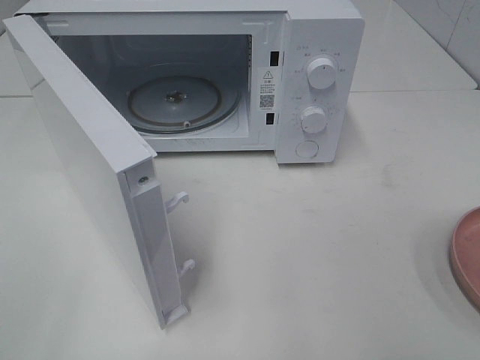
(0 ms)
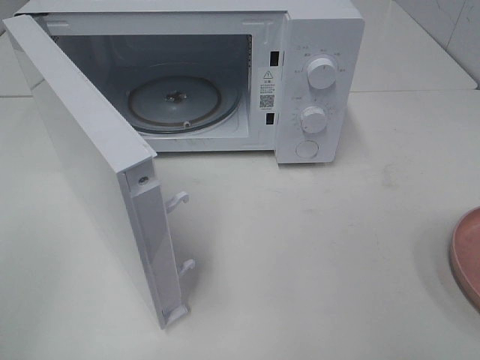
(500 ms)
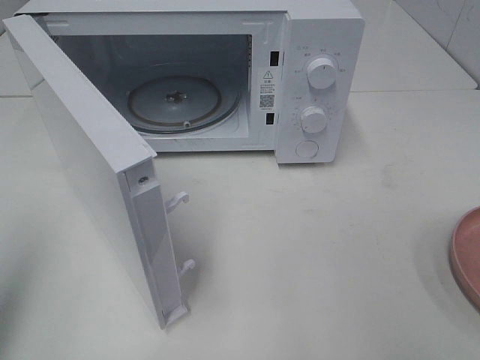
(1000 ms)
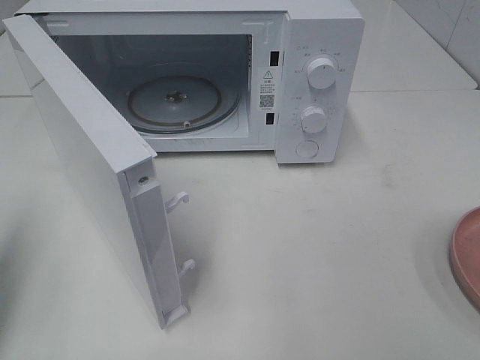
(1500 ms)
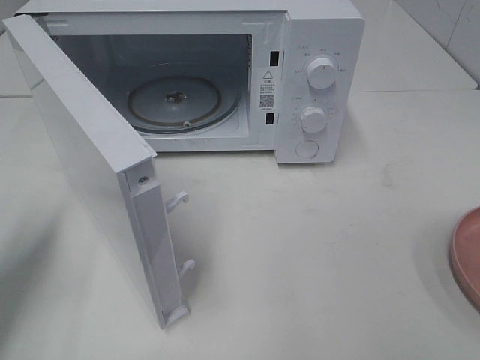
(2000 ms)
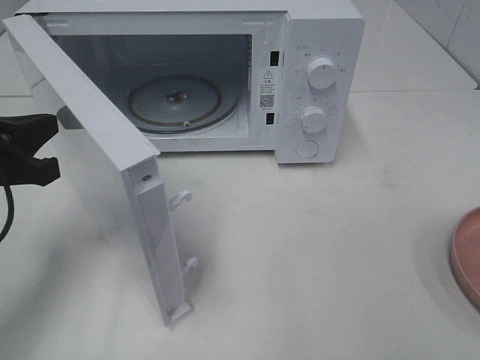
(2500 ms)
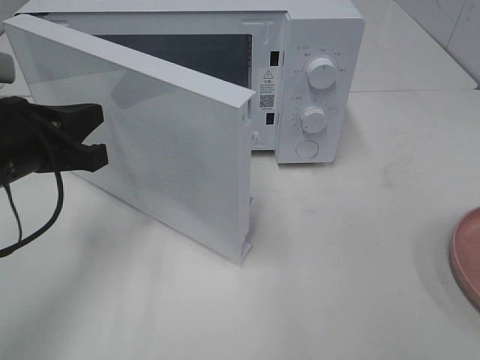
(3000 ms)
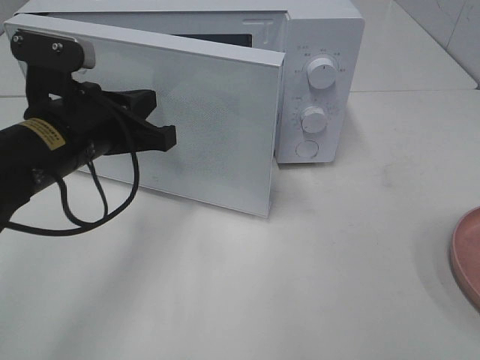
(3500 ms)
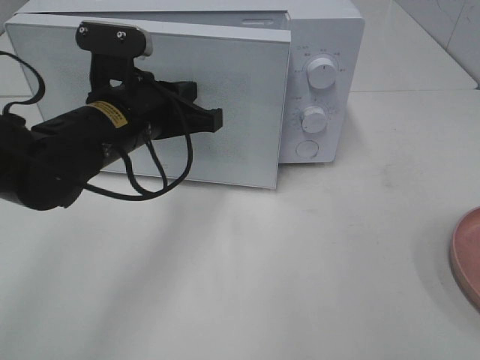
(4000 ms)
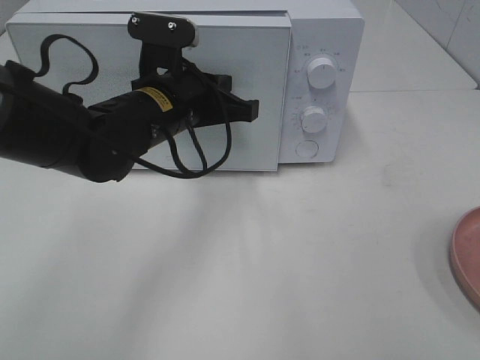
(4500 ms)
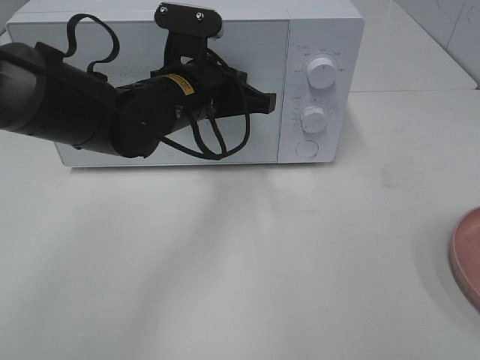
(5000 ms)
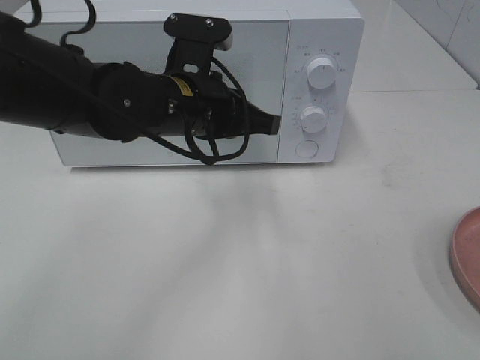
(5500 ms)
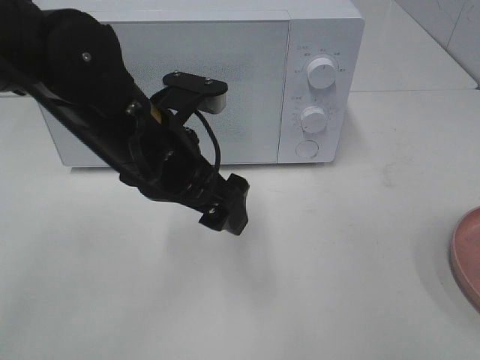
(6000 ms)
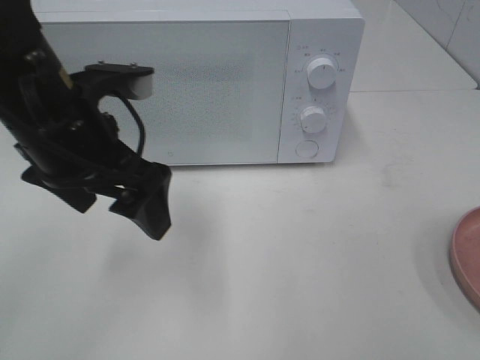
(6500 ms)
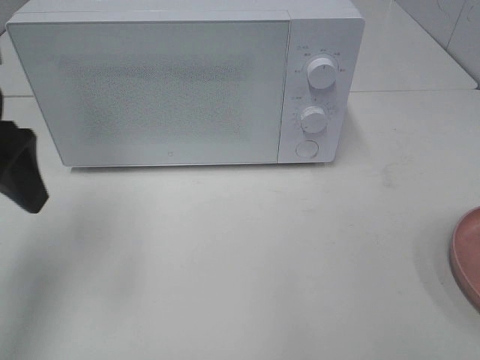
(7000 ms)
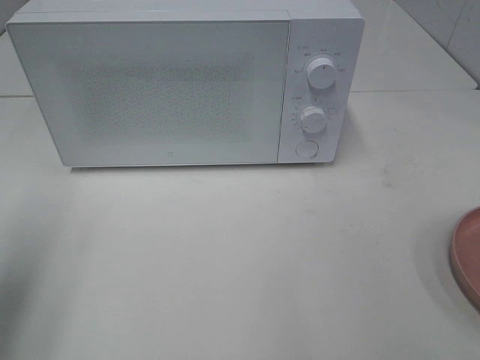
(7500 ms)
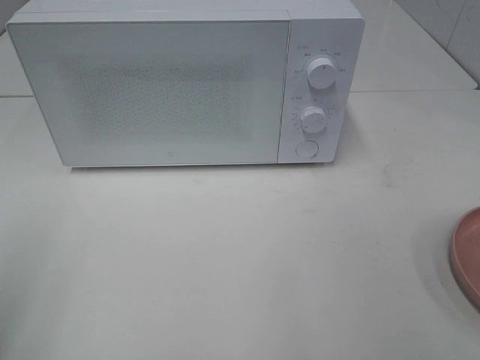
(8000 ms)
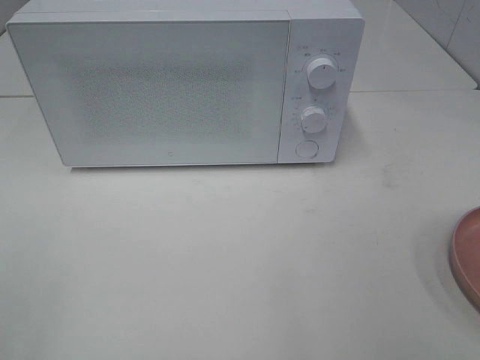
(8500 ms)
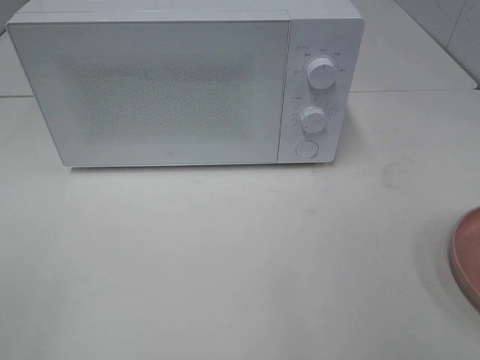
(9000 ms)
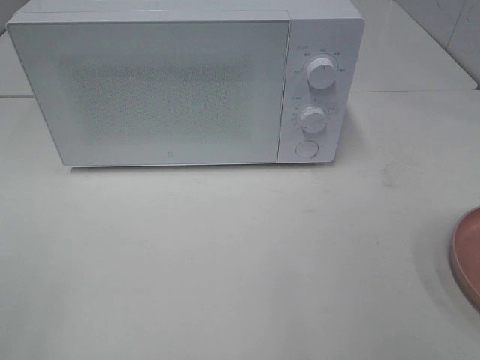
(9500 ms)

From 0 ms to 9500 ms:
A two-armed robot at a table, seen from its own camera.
Task of the whole recording: Heat the burger.
Step, from 0 ms to 5500 ms: Left hand: close the microwave door.
From 0 ms to 2000 ms: The left gripper is displaced forward and downward by roughly 20 cm, and closes.
From 2000 ms to 4000 ms: The left gripper moves to the right and forward, roughly 20 cm.
From 4000 ms to 5500 ms: The left gripper heads to the right, covering roughly 5 cm.
From 5500 ms to 7500 ms: The left gripper moves to the left and backward, roughly 30 cm, and opens its fingers.
From 7500 ms to 9500 ms: The left gripper is displaced backward by about 15 cm.

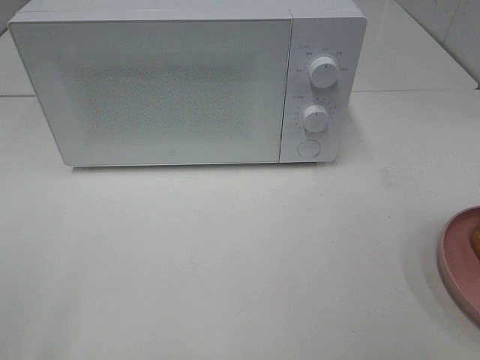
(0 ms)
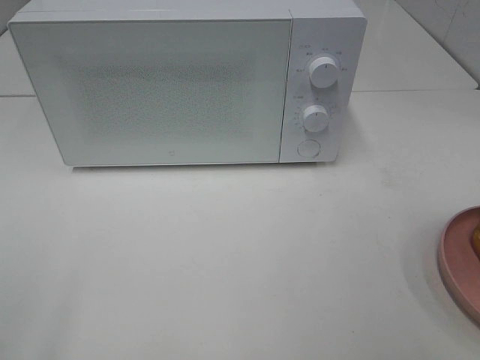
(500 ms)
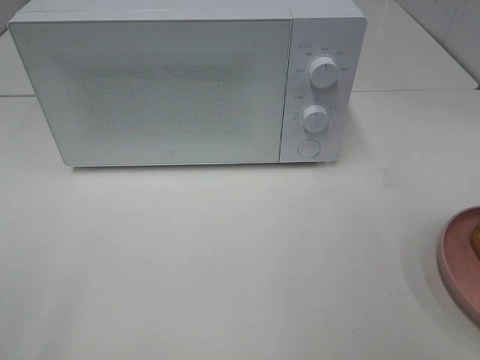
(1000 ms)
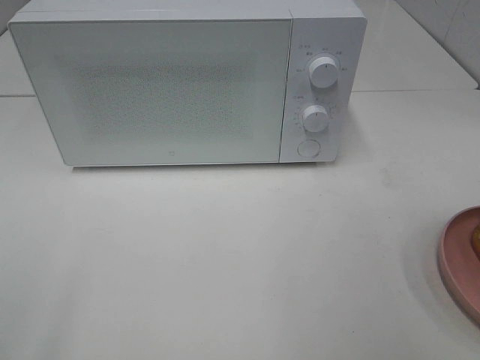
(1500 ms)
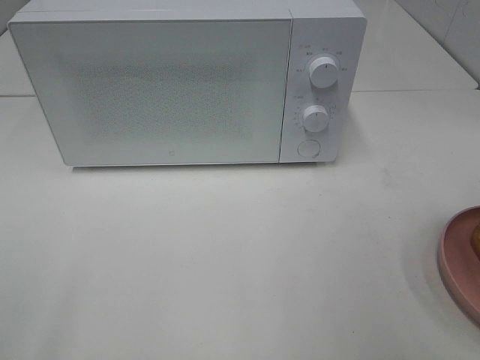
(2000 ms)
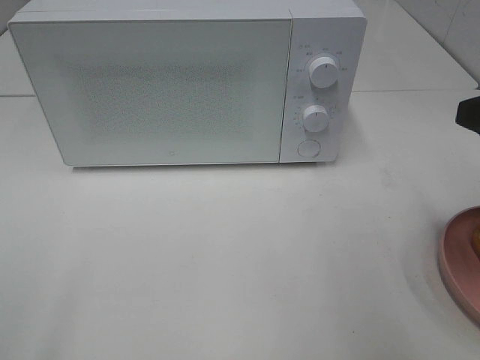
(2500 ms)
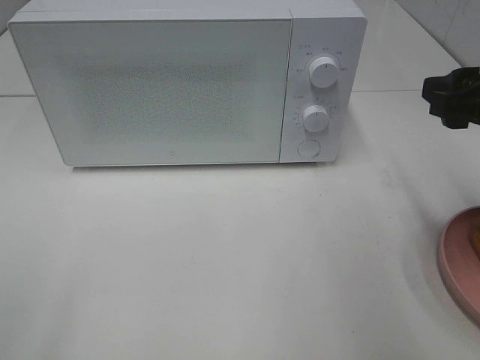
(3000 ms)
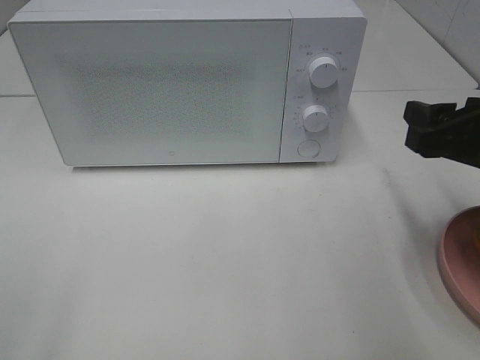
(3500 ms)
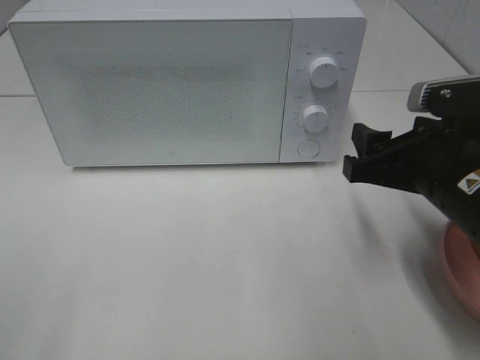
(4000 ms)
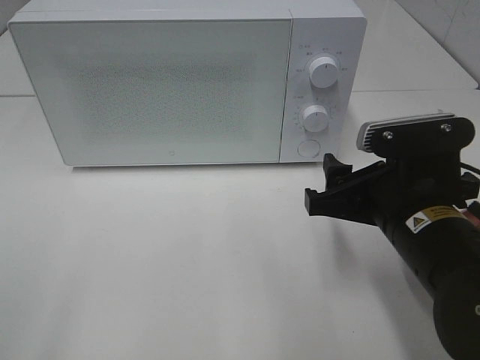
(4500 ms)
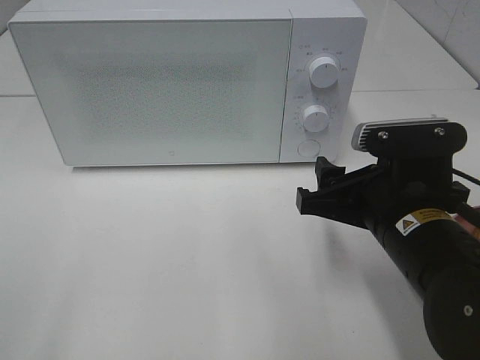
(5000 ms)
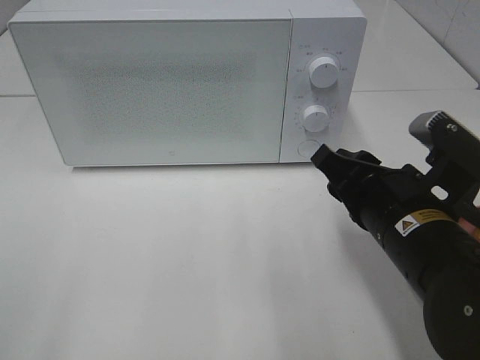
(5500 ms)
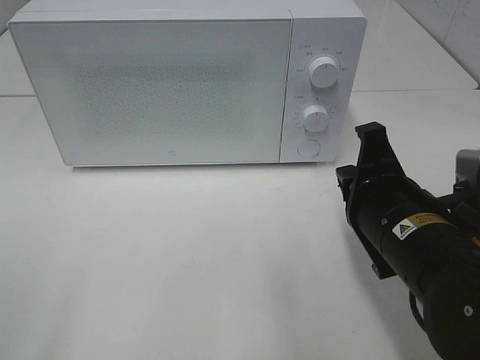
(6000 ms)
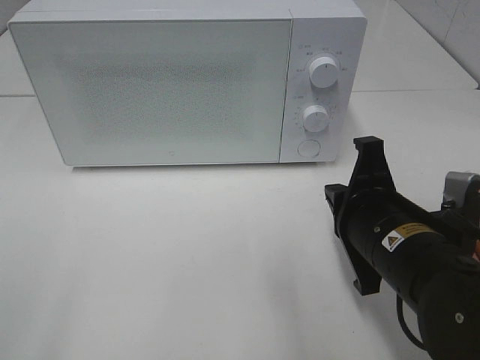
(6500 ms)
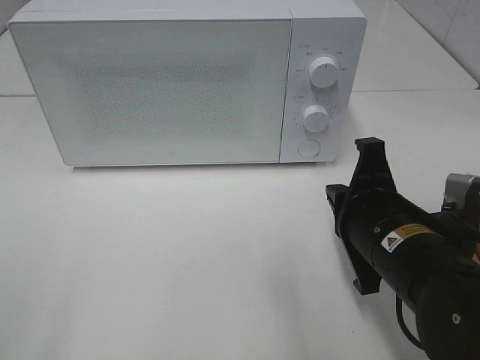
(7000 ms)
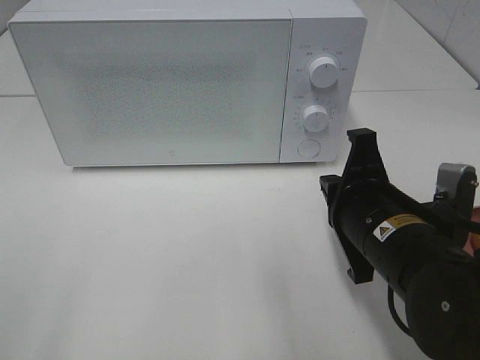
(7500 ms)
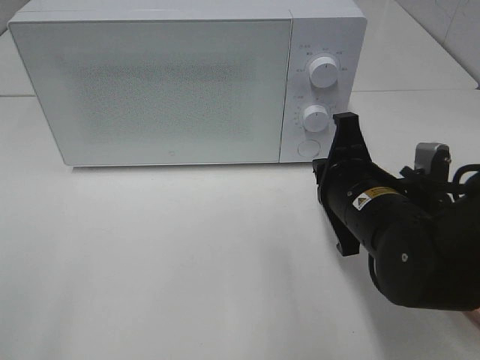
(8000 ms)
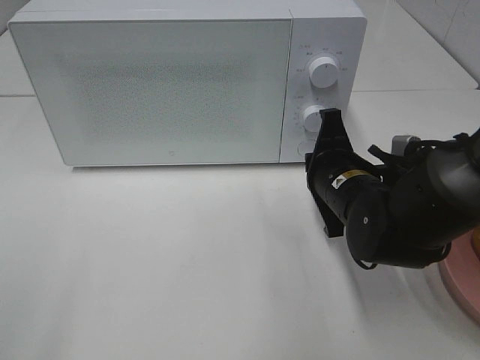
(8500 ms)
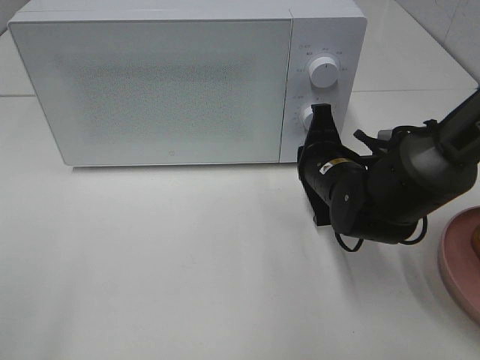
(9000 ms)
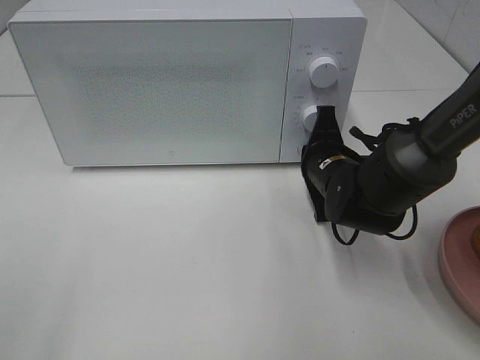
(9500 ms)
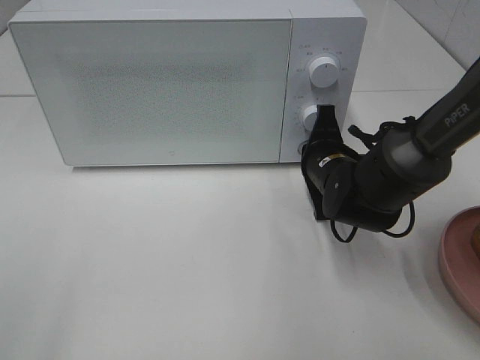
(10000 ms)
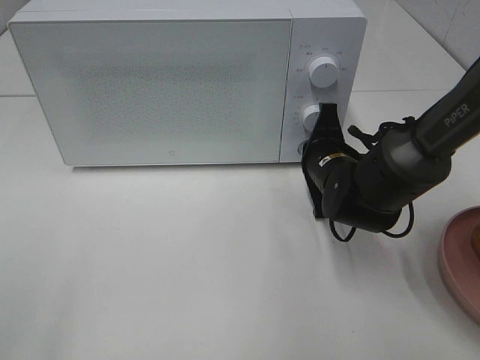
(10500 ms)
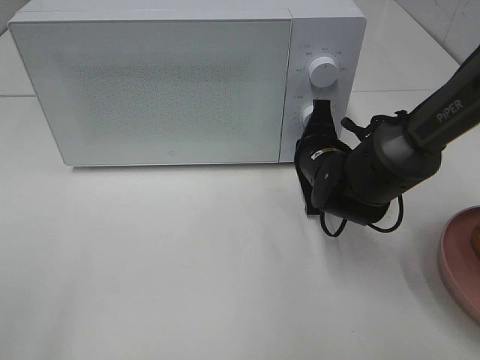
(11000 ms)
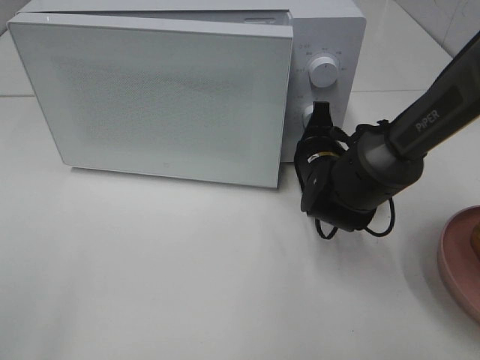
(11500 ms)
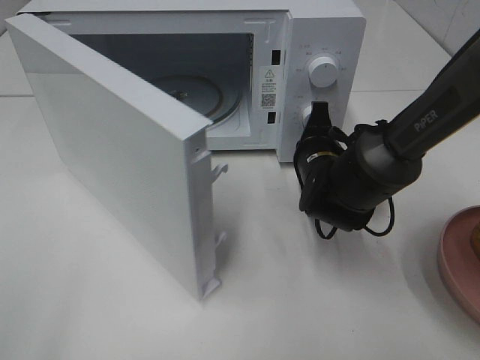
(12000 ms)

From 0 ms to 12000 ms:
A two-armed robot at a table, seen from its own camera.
Task of the whole recording: Heat the burger.
From 2000 ms to 4000 ms: The right gripper shifts roughly 15 cm downward, forward and to the left.
From 4000 ms to 6000 ms: The right gripper moves about 5 cm, and closes up.
From 6000 ms to 8000 ms: The right gripper moves some 5 cm.
From 8000 ms to 10000 ms: The right gripper travels forward and downward by some 10 cm.

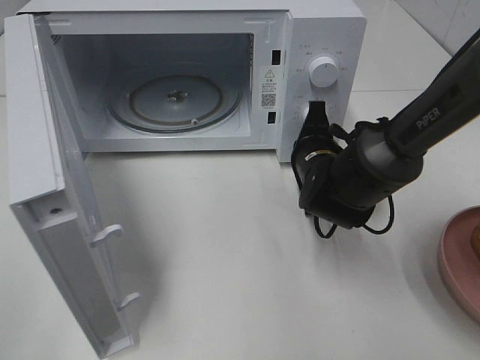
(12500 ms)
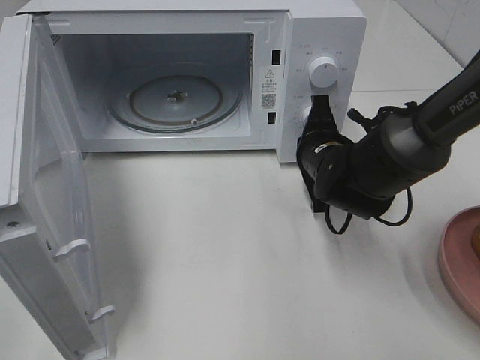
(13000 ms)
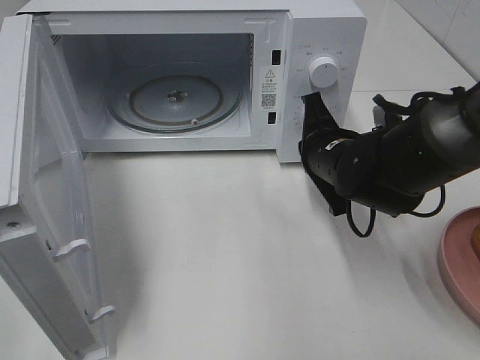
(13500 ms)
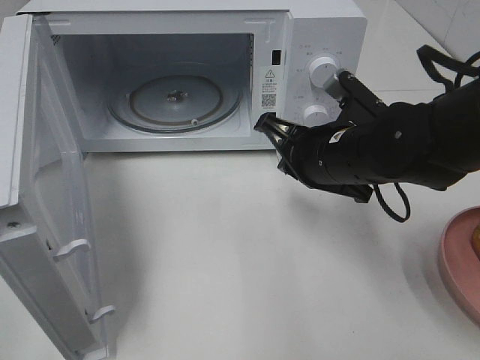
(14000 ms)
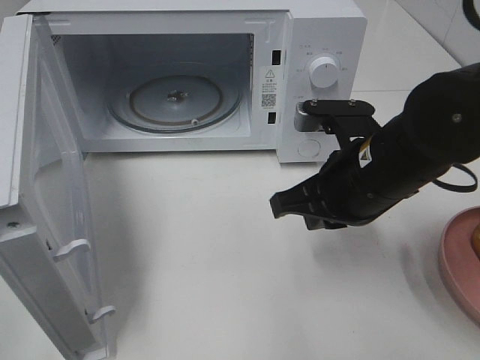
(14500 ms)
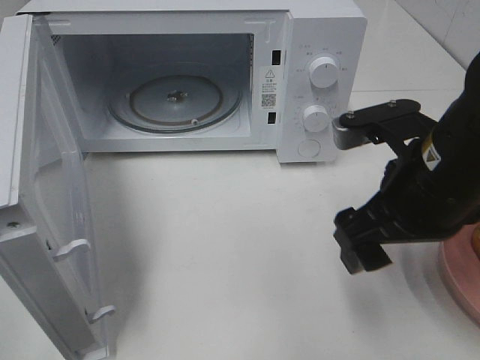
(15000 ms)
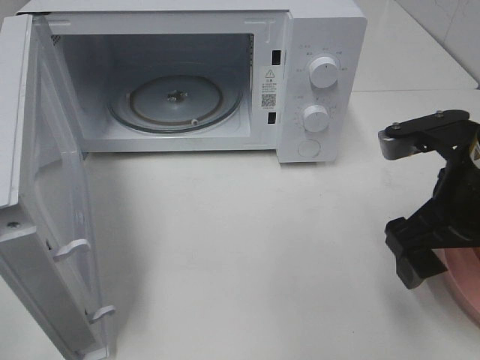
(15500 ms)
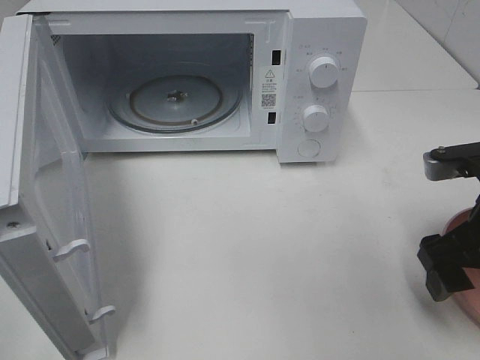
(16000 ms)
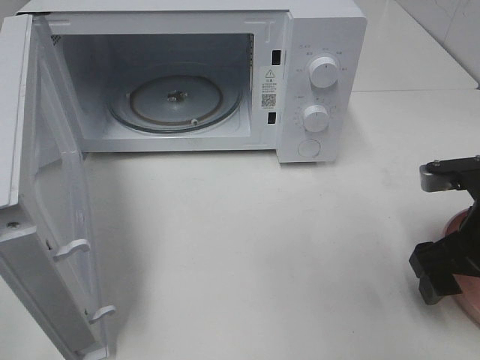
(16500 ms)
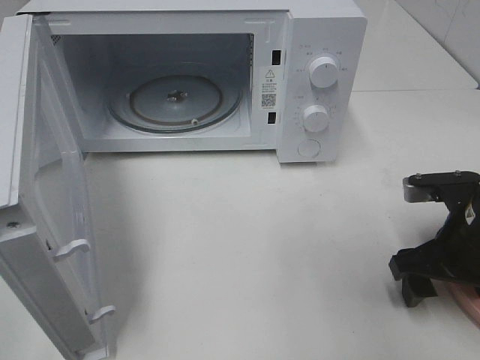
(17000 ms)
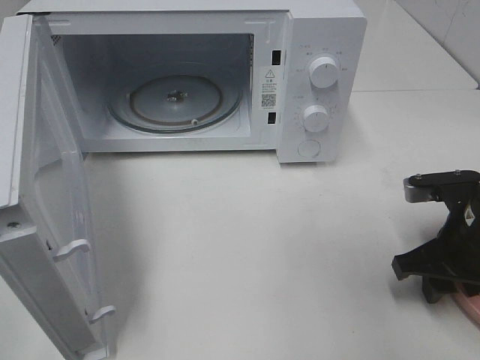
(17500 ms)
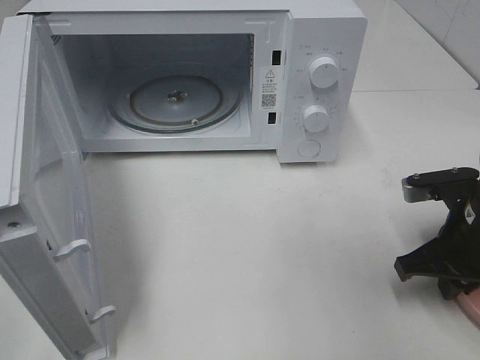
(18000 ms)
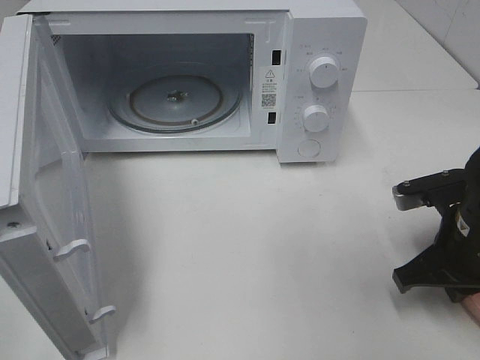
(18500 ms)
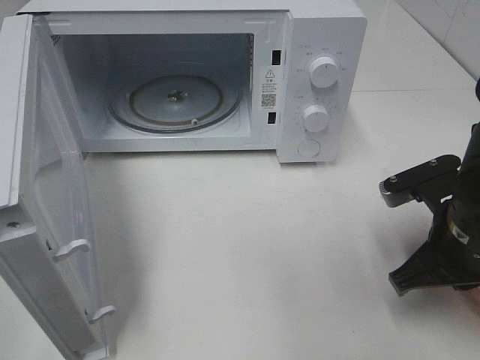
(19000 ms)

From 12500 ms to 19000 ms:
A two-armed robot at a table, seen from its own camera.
Task of the whole recording: Heat the burger.
Step, from 13500 ms to 17500 ms: Right hand: grab the plate with the hamburger.
From 12500 ms to 14500 ms: The right gripper goes approximately 15 cm backward and upward.
From 14500 ms to 17000 ms: The right gripper shifts roughly 15 cm to the right and downward, and opens its fingers.
From 17000 ms to 19000 ms: The right gripper closes up.
